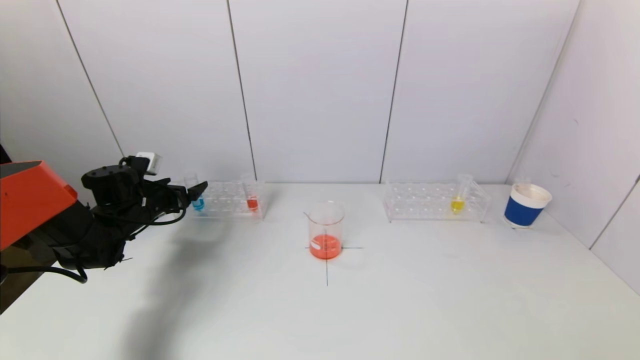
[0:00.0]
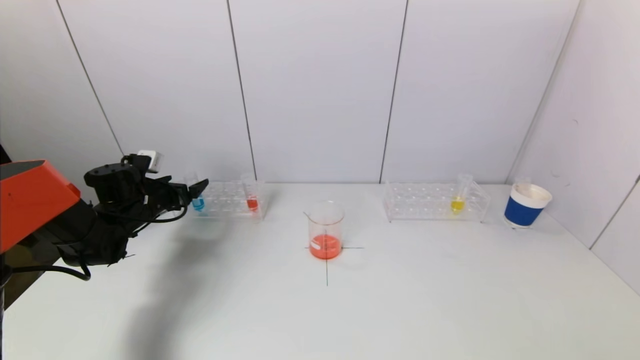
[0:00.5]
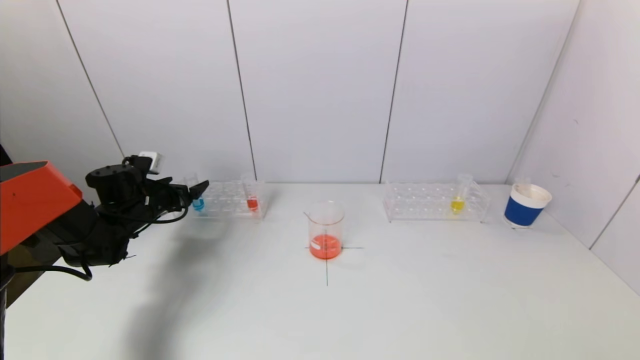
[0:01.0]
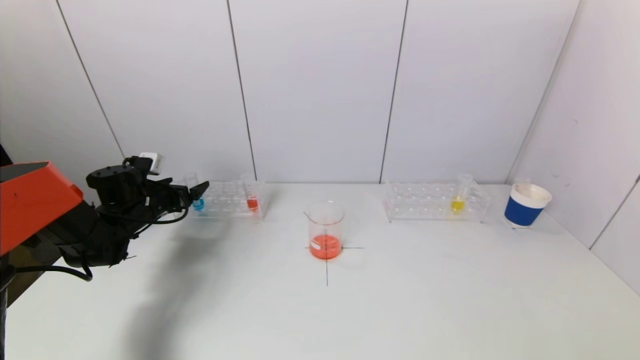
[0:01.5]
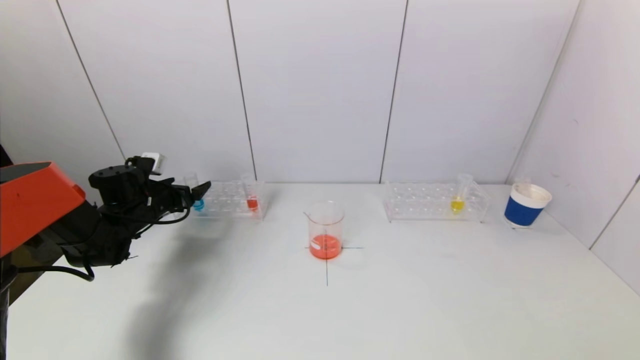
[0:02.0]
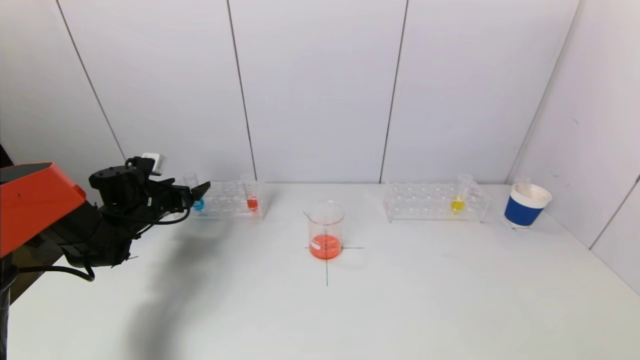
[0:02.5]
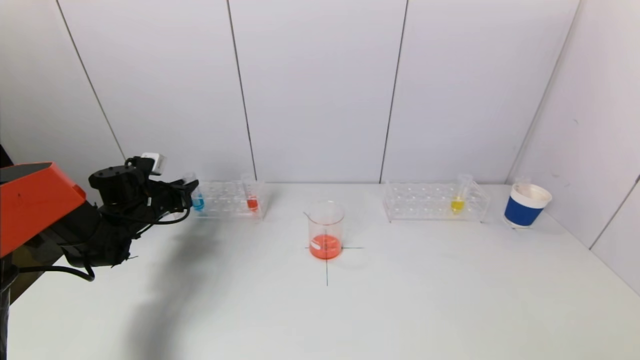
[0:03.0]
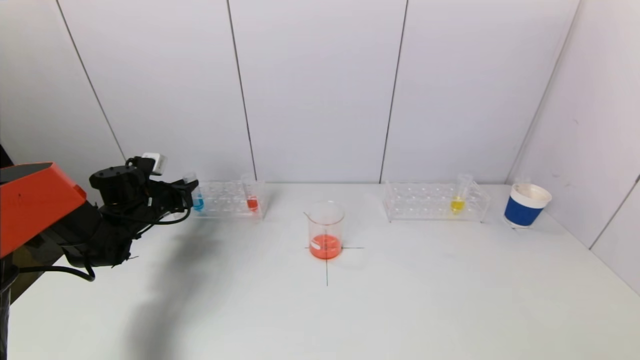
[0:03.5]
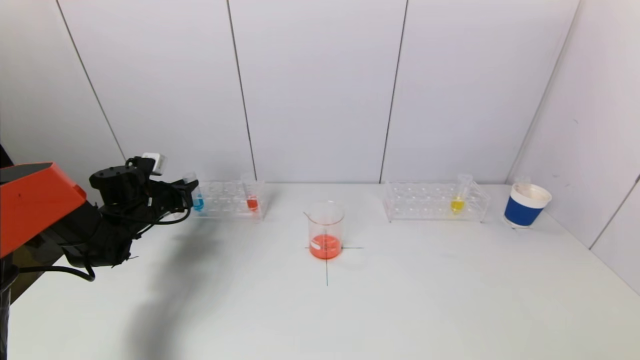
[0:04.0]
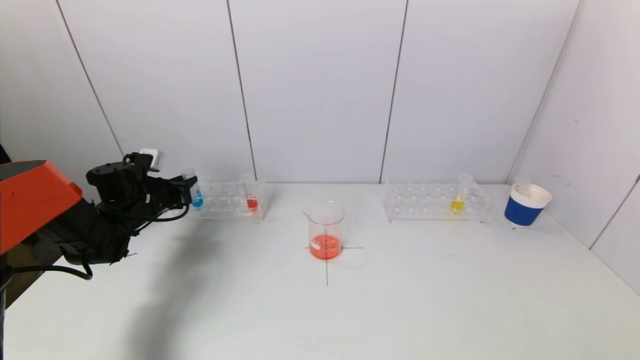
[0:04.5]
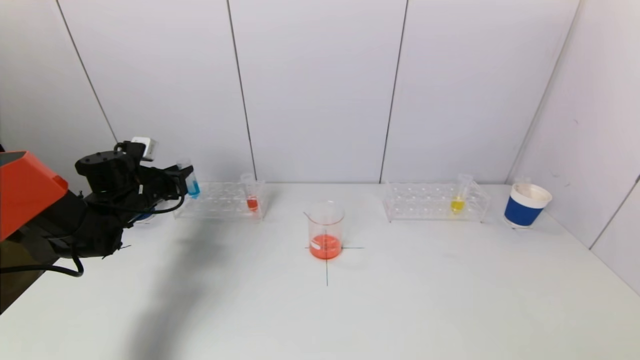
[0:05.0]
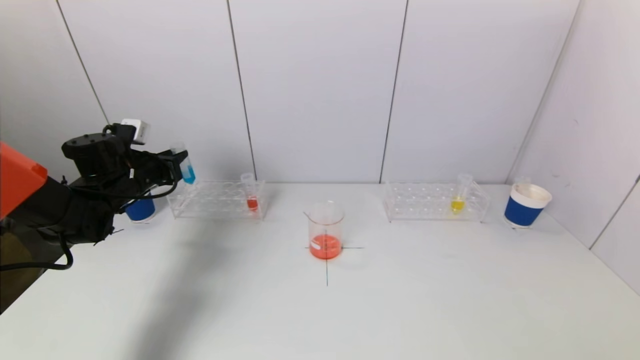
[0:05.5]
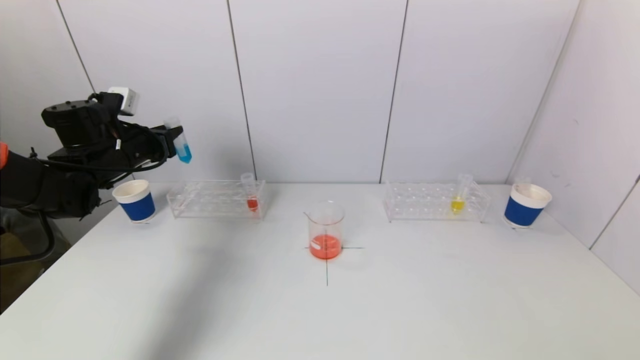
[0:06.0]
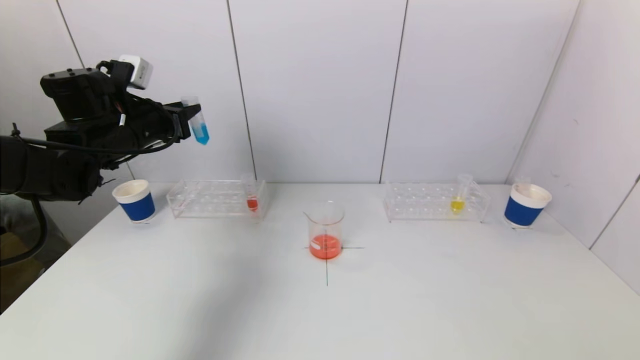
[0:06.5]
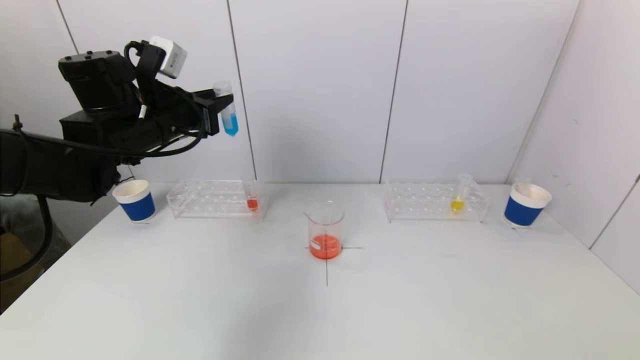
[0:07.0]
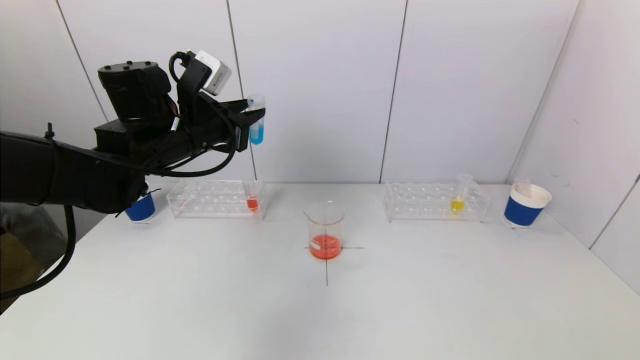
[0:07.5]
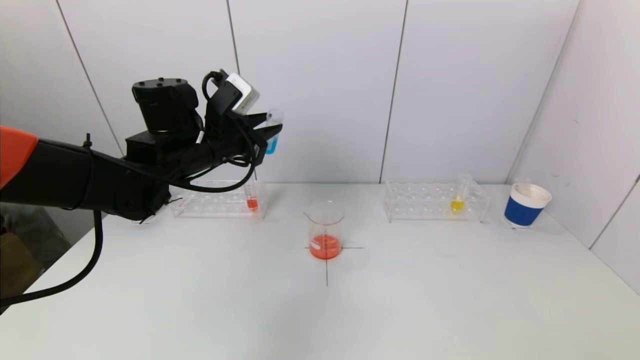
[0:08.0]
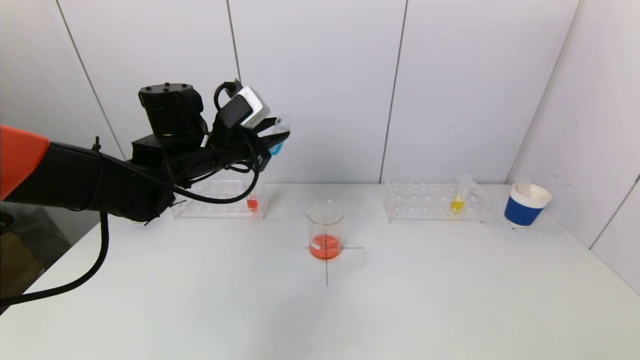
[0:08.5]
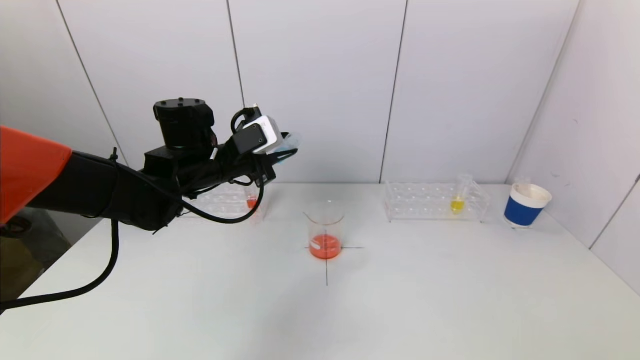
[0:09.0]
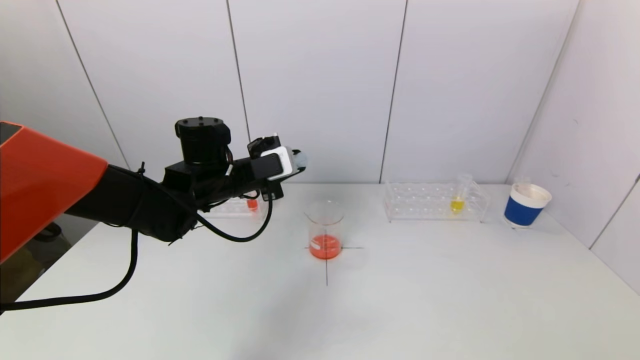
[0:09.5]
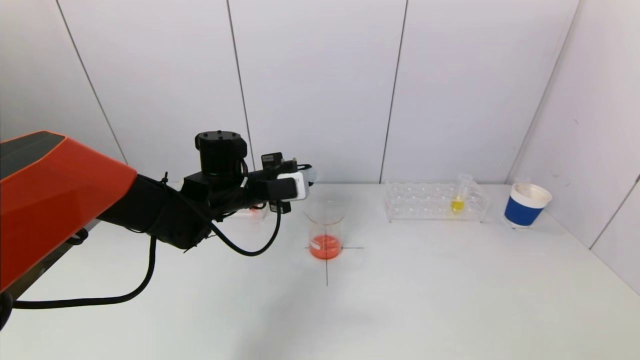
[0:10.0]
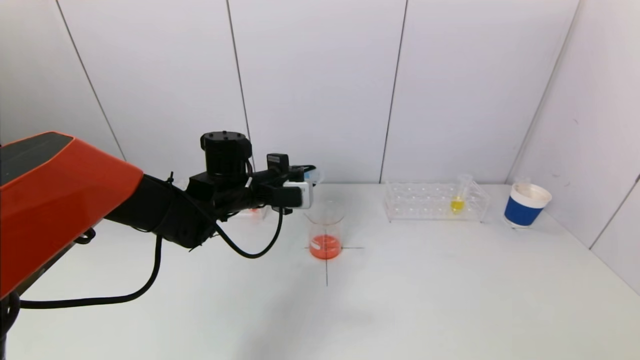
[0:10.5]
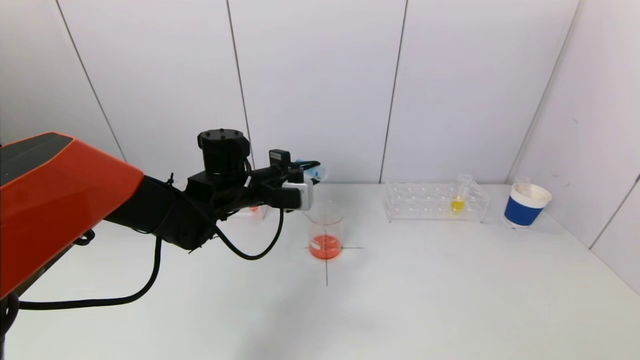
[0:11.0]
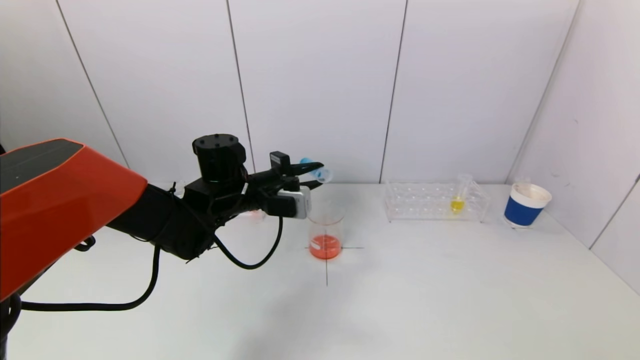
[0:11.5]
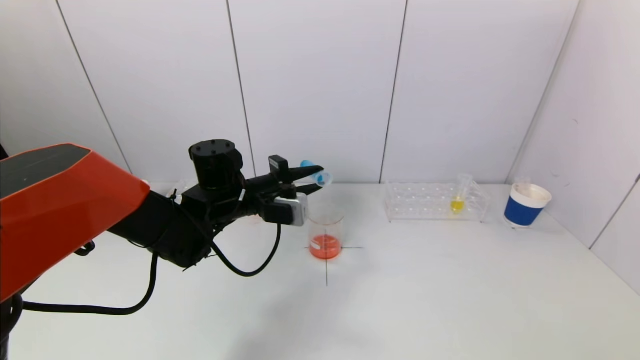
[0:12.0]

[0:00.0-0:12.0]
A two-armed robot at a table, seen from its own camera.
Task of the whole recording: pick up a test tube with pigment on left test tube rack and a test tube with pigment on right test tube rack by grippers and pour them into the beaker.
Step, 0:00.0 to 0:03.5: Grasp the blue reagent with the left gripper.
0:00.0 to 0:02.0: Both grippers stay about where they are.
0:04.0 to 0:06.0: The left gripper is displaced upward by some 15 cm.
0:06.0 to 0:08.0: The left gripper moves to the right, roughly 15 cm.
0:08.0 to 0:10.0: The left gripper shifts approximately 10 cm downward.
0:10.0 to 0:12.0: There are only small adjustments of the grippers.

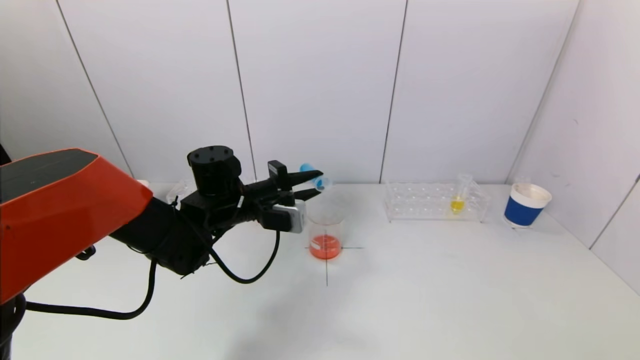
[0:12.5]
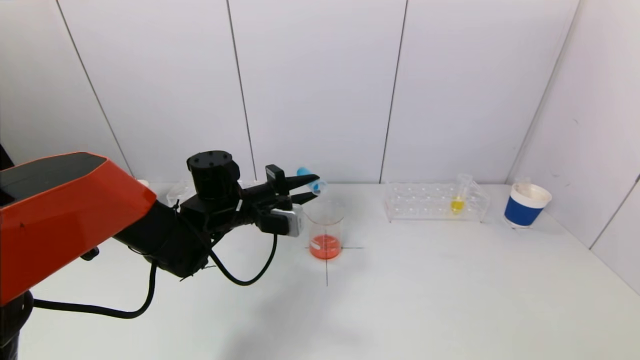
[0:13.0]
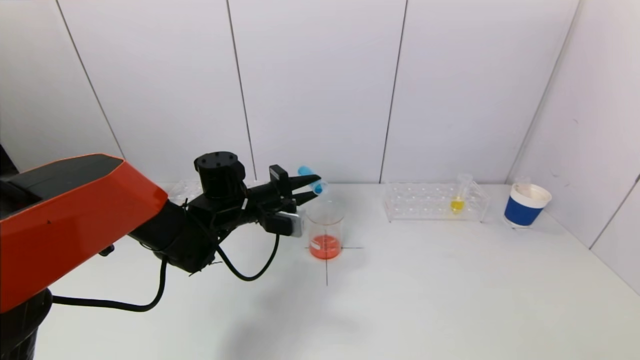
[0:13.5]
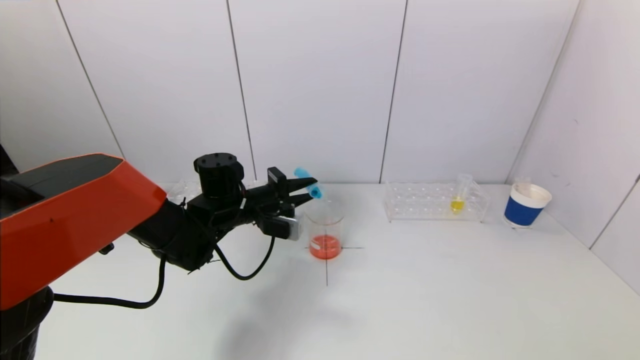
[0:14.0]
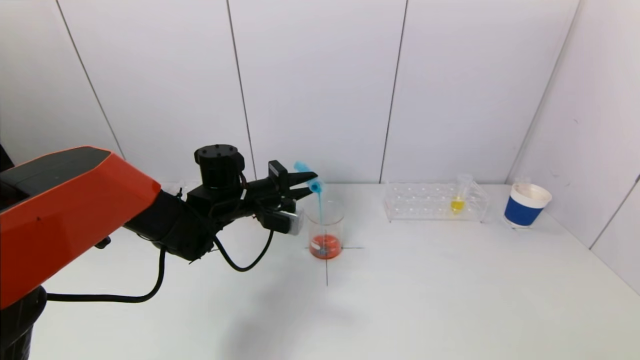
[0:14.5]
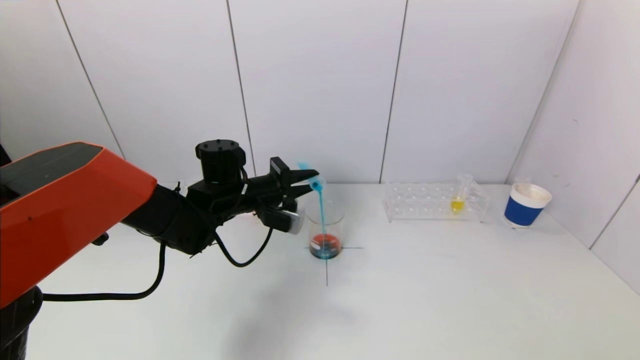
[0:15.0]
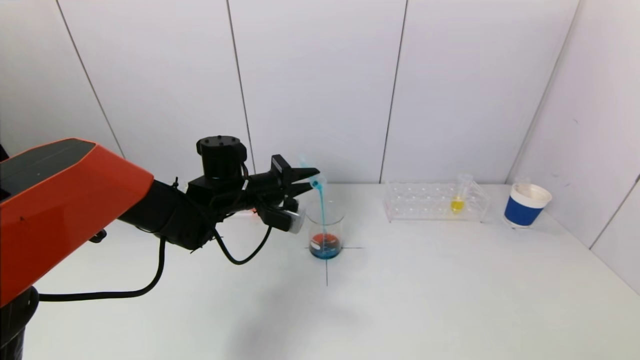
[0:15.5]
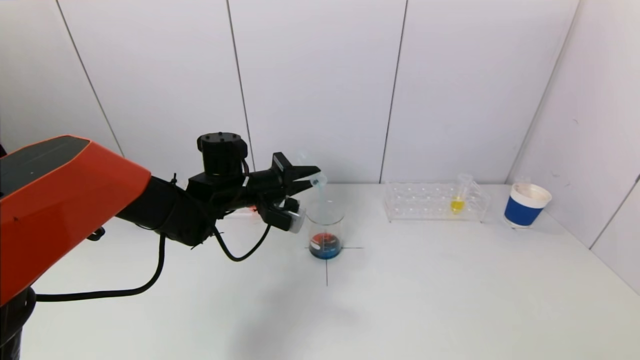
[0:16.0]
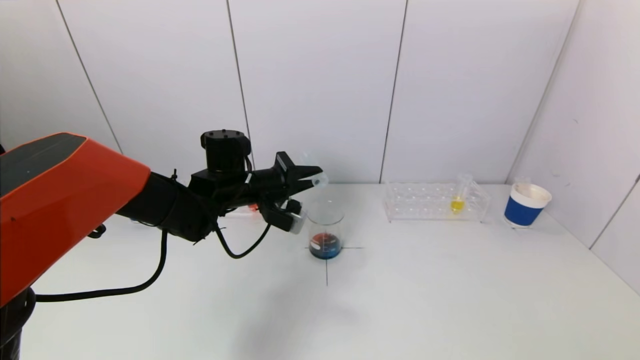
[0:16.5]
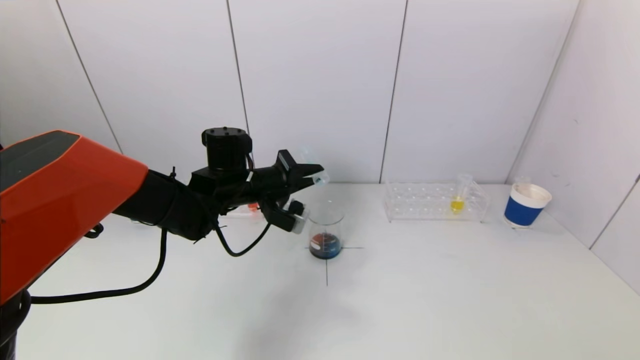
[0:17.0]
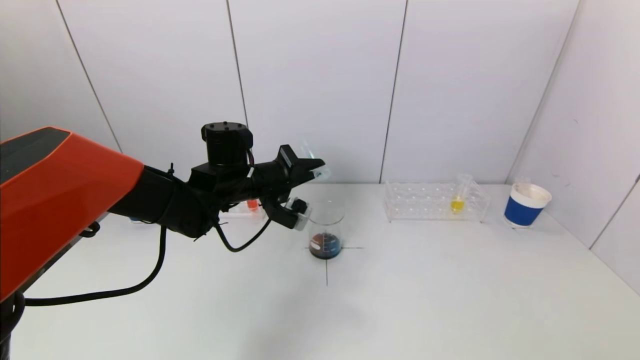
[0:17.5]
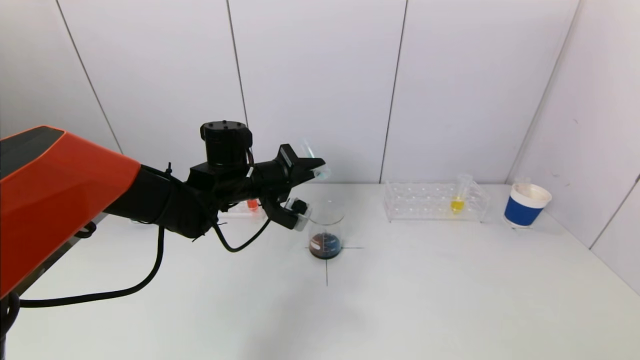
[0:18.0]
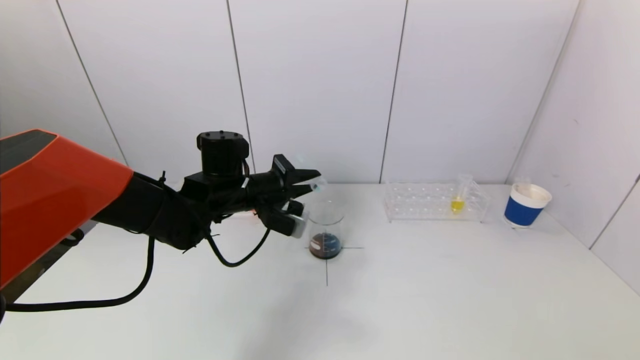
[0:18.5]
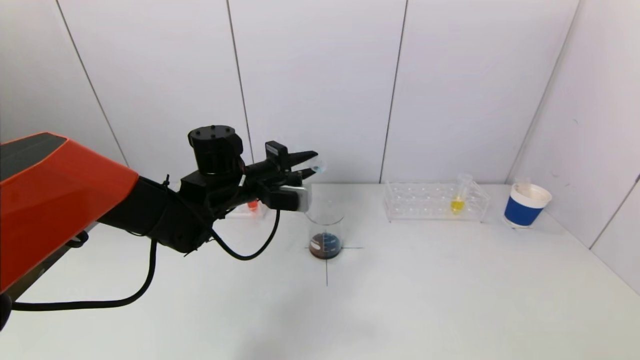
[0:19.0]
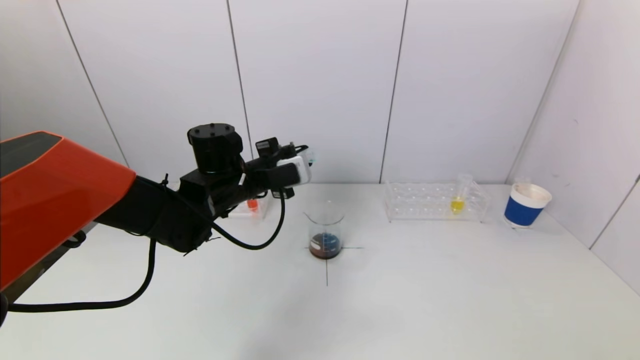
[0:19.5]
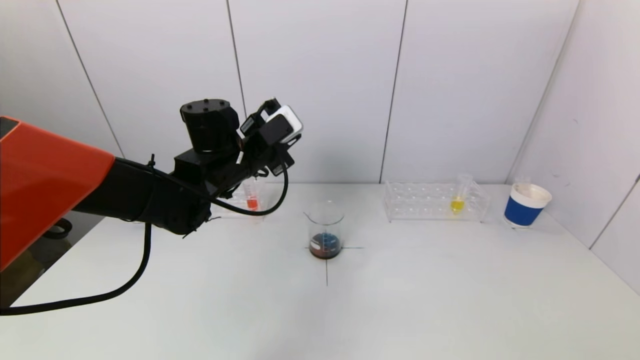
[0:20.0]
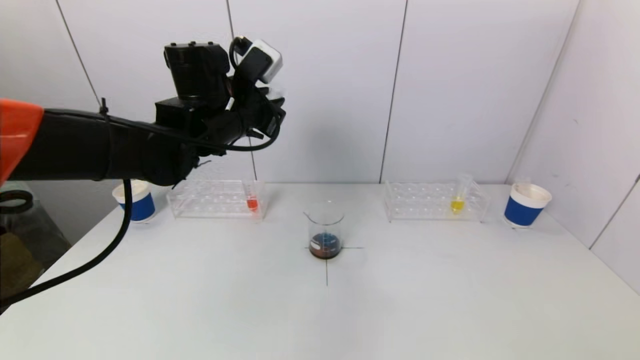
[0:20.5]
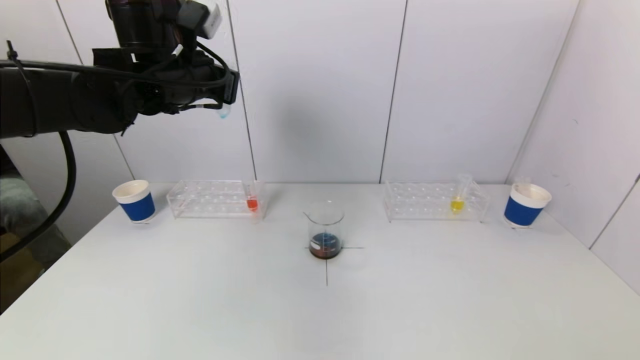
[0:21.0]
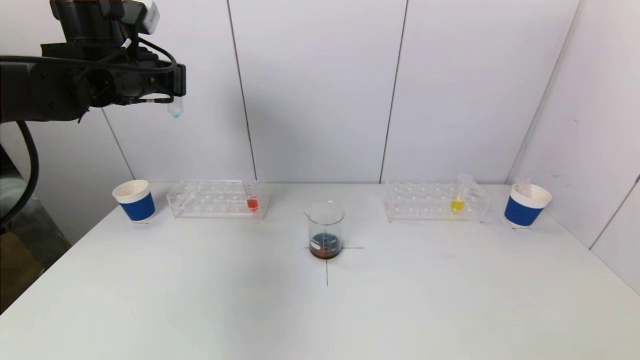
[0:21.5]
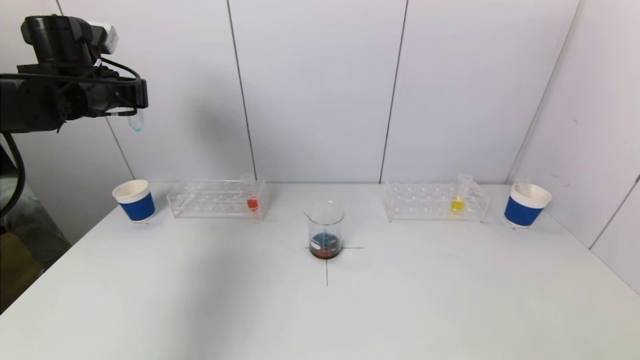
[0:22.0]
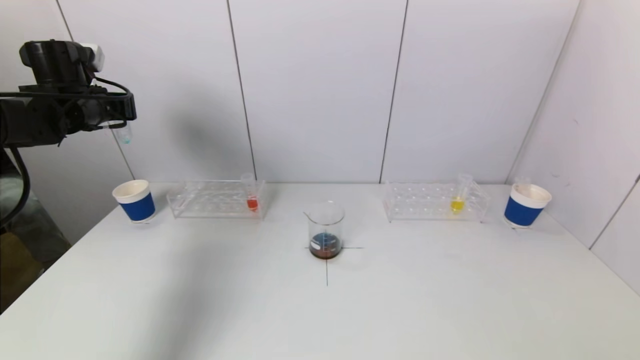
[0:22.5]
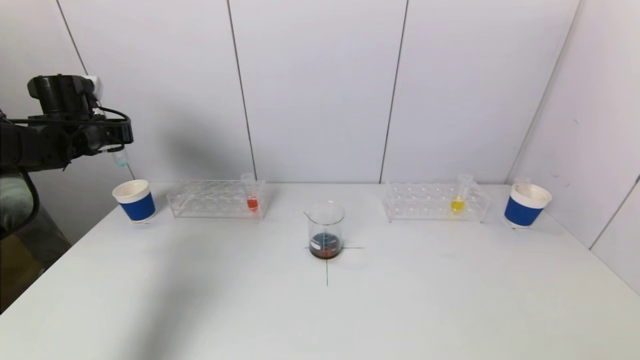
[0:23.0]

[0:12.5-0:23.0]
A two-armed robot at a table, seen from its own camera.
Task of the whole recording: pick up a test tube with pigment on left test tube rack and a test tube with pigment on right test tube rack by grippers and pour them into the beaker.
Step, 0:12.5 to 0:17.0: Pour the blue reagent into the graduated cylinder with the left gripper.
0:12.5 to 0:14.5: The grippers stay close to where they were, moving slightly.
0:14.5 to 0:16.5: The grippers move only a little.
0:19.0 to 0:21.0: The left gripper shifts approximately 15 cm upward and to the left.
0:21.0 to 0:23.0: The left gripper goes about 25 cm to the left and downward.
